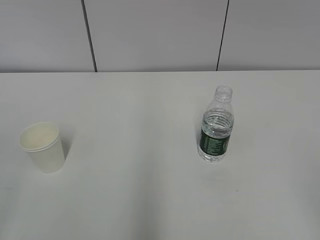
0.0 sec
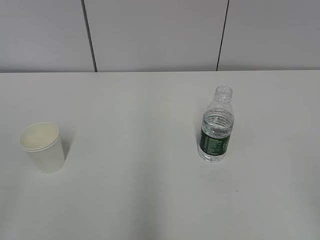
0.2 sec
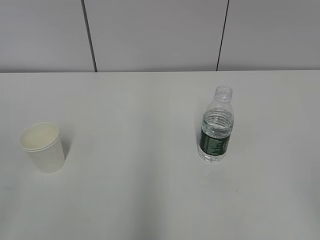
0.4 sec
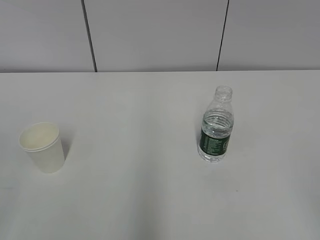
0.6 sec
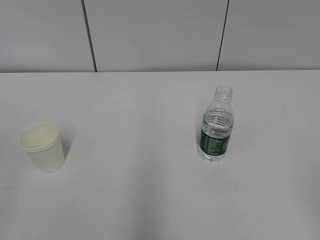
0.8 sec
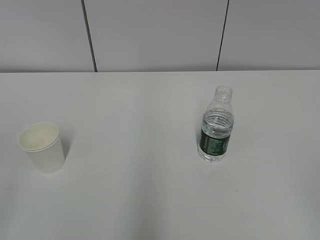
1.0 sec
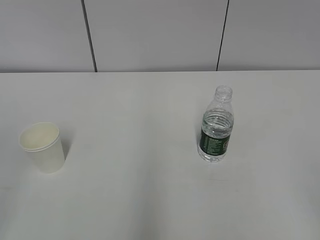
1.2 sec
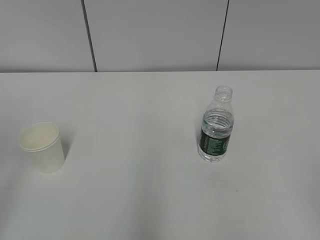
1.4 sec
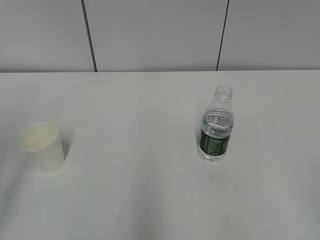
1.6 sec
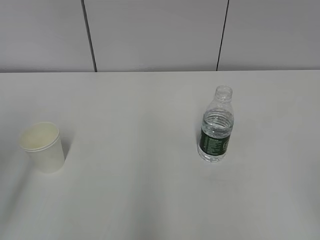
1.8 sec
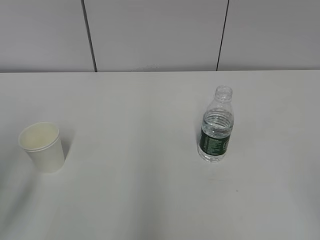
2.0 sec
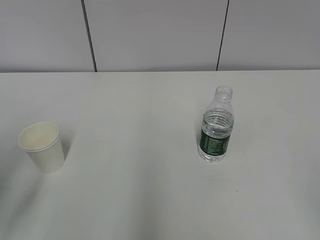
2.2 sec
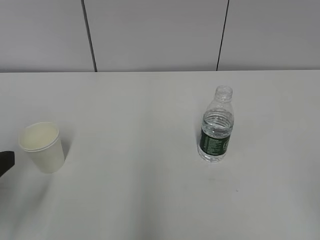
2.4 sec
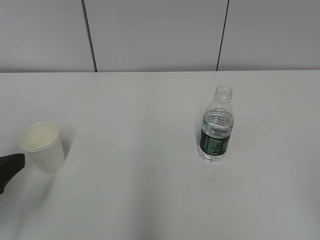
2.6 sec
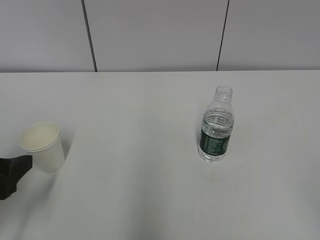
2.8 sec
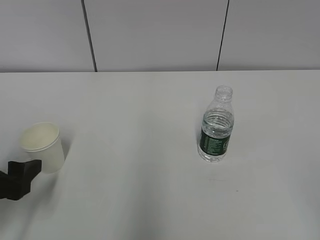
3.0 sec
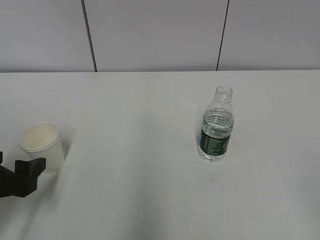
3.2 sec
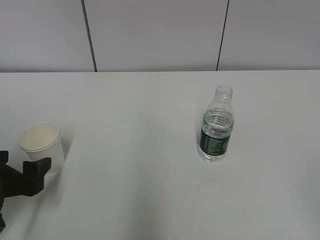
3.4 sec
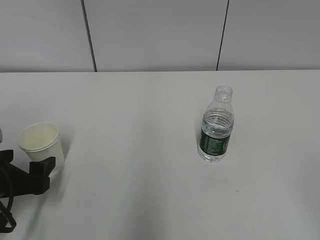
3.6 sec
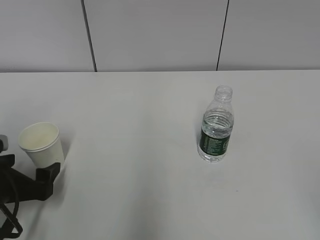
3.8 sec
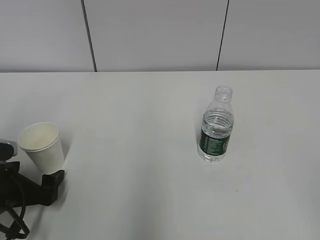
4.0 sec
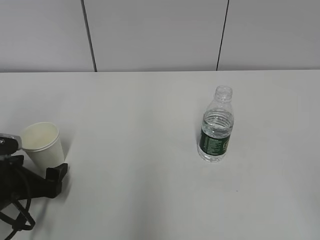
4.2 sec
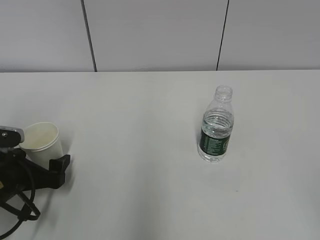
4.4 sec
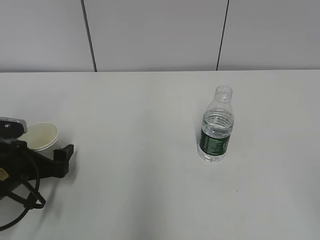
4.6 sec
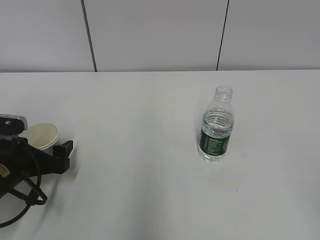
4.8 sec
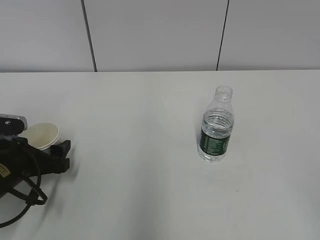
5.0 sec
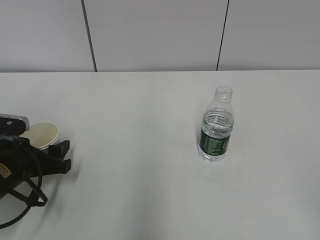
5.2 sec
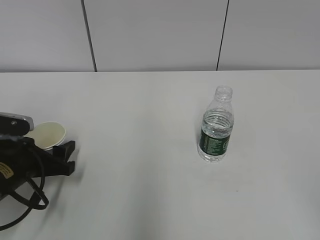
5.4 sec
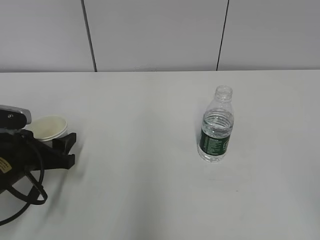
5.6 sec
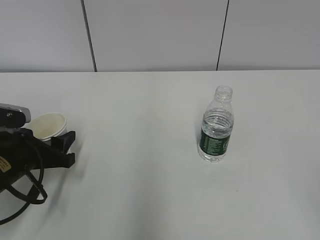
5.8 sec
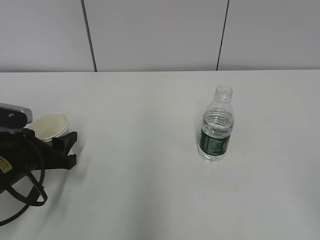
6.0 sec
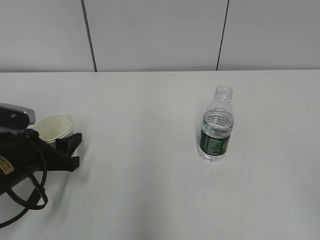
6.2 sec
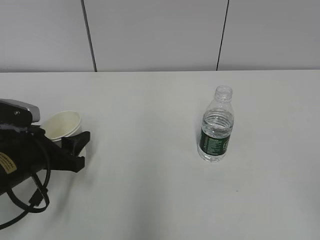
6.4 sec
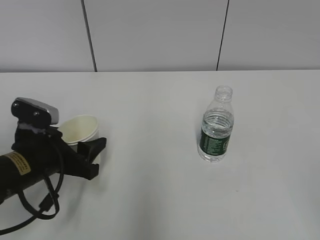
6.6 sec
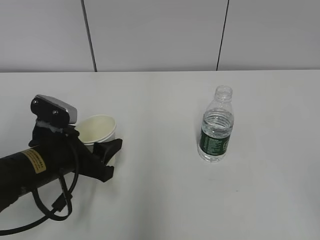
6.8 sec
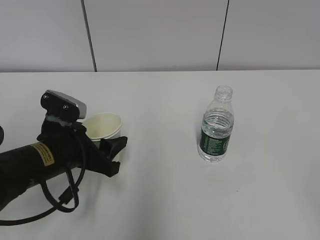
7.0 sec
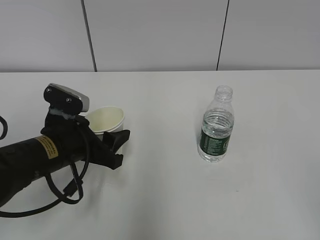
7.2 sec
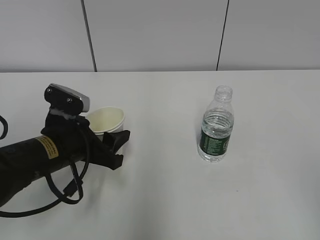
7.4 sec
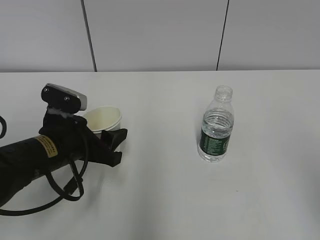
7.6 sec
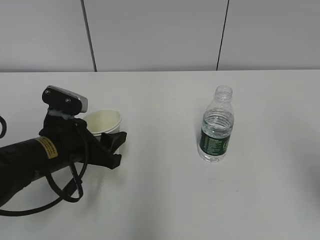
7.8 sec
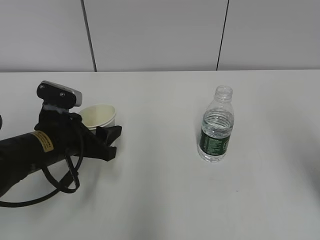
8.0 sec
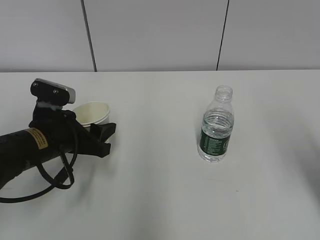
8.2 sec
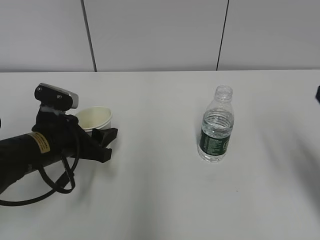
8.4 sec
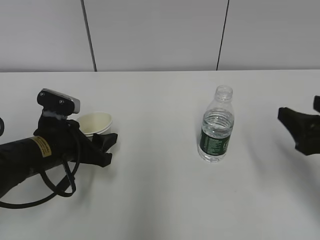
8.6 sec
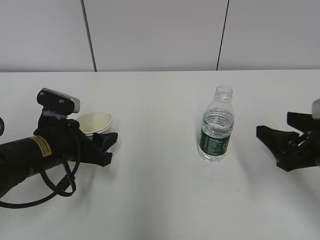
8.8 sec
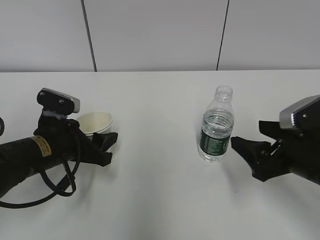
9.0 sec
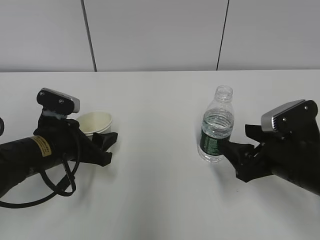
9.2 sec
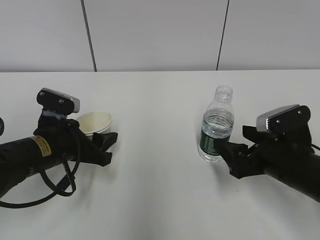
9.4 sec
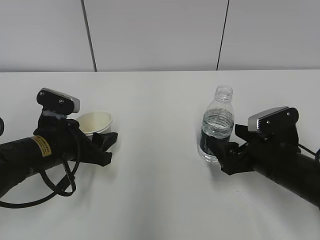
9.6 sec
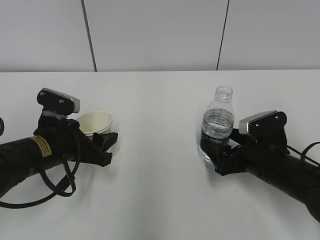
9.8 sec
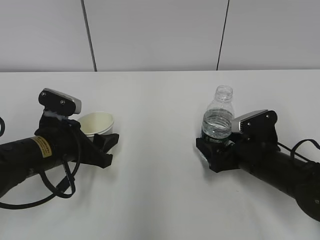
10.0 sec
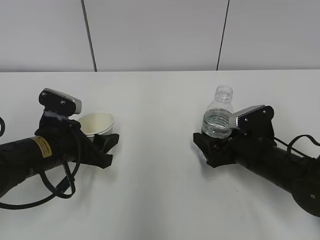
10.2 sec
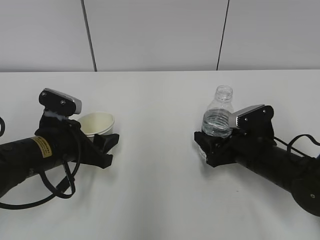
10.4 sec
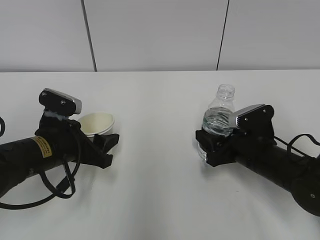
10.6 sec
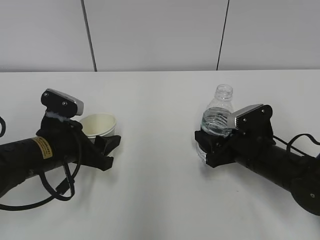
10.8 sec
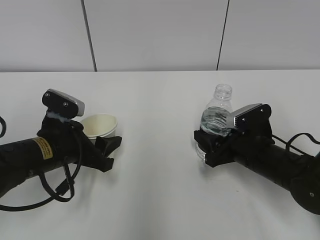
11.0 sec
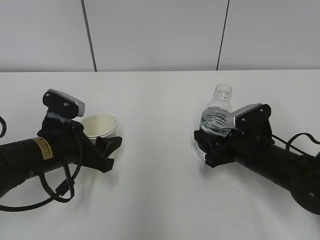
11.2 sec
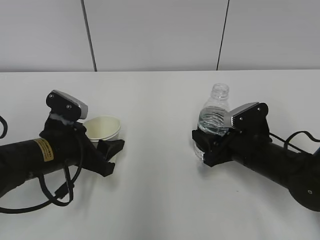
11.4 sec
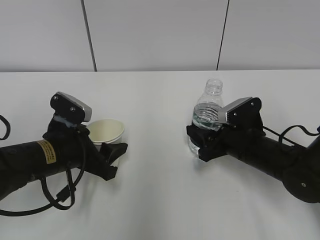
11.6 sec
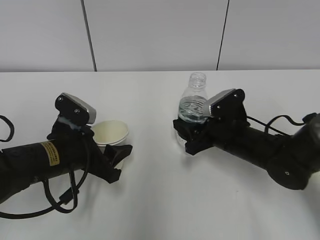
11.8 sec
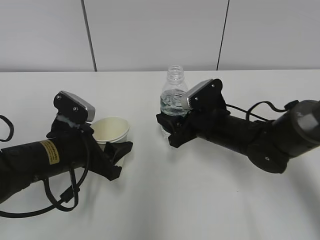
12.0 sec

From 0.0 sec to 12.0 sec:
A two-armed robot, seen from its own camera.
Step, from 0.0 sec to 4.2 sec: Grab the paper cup with the left hand.
Step, from 4.4 sec to 9.6 sec: Grab the water bottle with the right hand.
From 1.6 sec to 3.0 sec: The left gripper goes roughly 20 cm downward and forward.
From 3.0 sec to 4.4 sec: The left gripper is displaced downward and forward by roughly 10 cm, and opens its fingers.
From 4.4 sec to 6.0 sec: The left gripper closes.
From 6.0 sec to 7.6 sec: The right gripper is displaced forward by some 5 cm; the left gripper shifts approximately 10 cm to the right.
From 7.6 sec to 9.0 sec: The right gripper travels forward and downward by about 25 cm.
From 9.0 sec to 10.4 sec: The right gripper moves downward and forward, roughly 10 cm, and opens and closes again.
From 10.4 sec to 12.0 sec: The right gripper is displaced to the left by approximately 5 cm, and closes up.

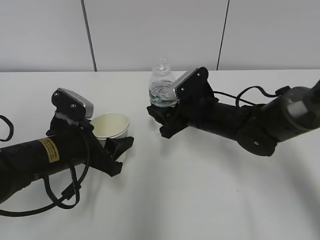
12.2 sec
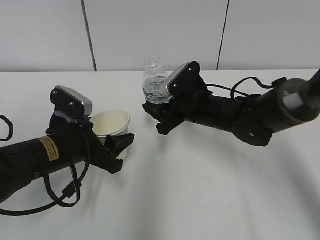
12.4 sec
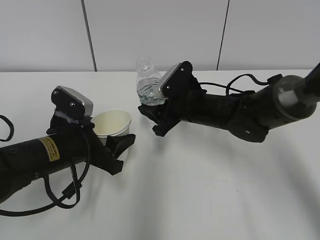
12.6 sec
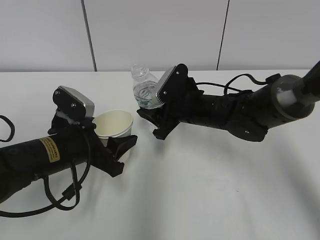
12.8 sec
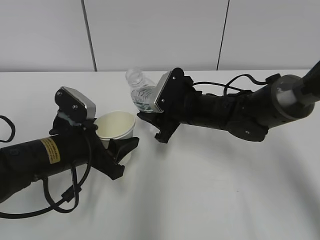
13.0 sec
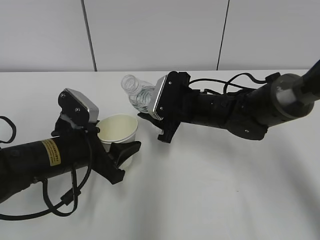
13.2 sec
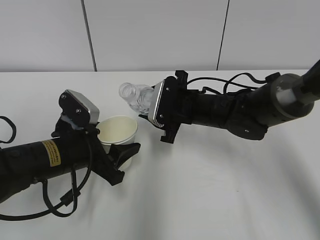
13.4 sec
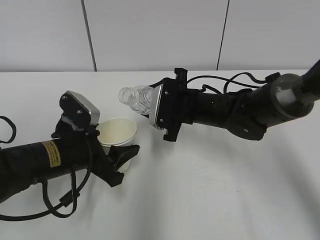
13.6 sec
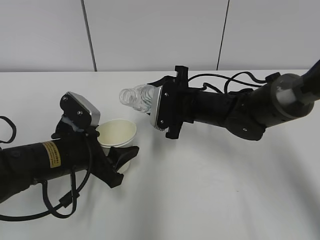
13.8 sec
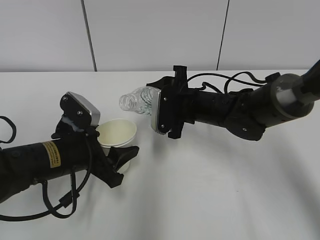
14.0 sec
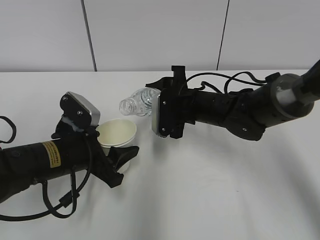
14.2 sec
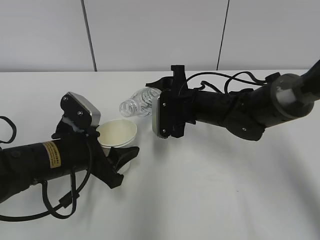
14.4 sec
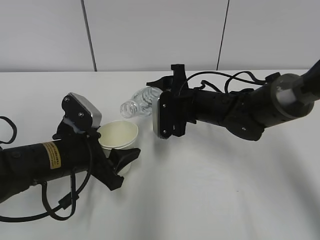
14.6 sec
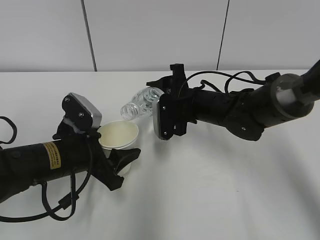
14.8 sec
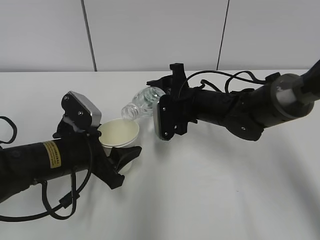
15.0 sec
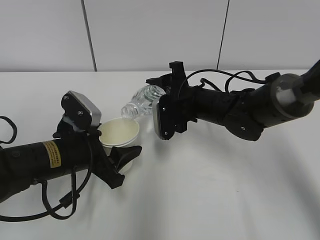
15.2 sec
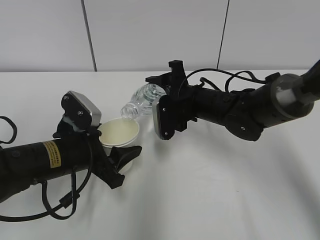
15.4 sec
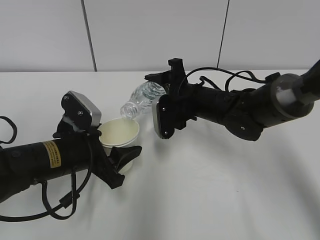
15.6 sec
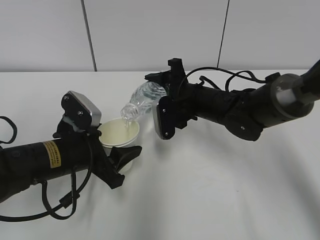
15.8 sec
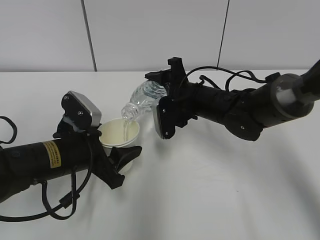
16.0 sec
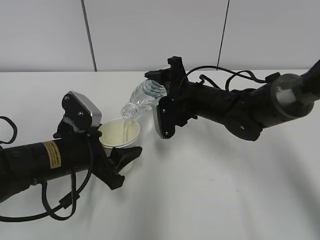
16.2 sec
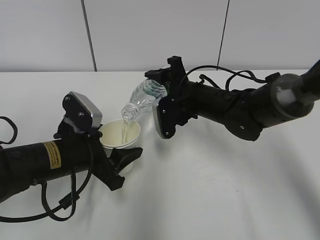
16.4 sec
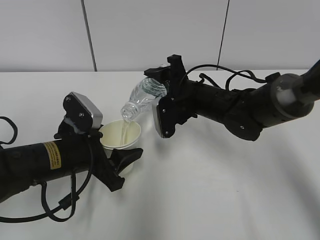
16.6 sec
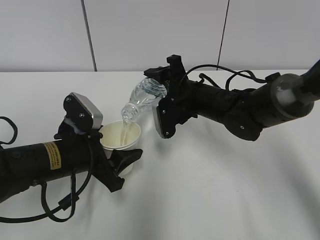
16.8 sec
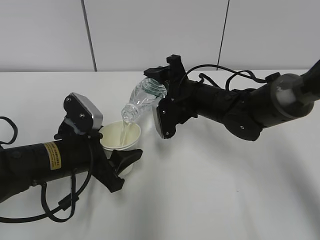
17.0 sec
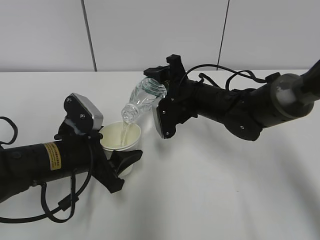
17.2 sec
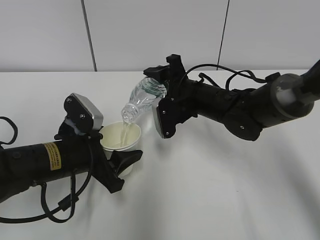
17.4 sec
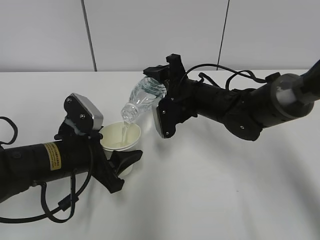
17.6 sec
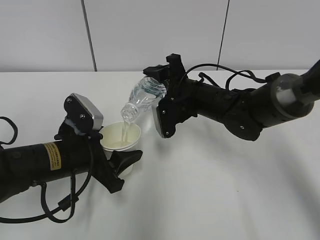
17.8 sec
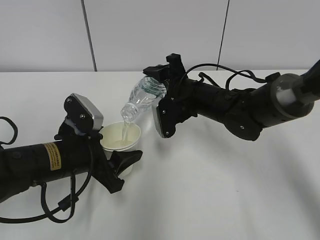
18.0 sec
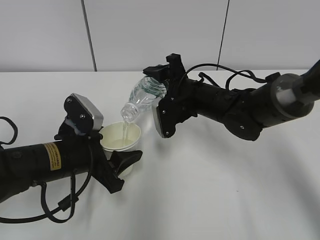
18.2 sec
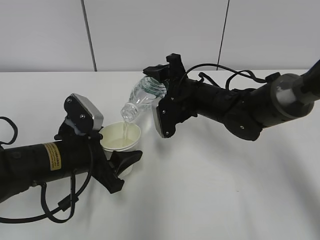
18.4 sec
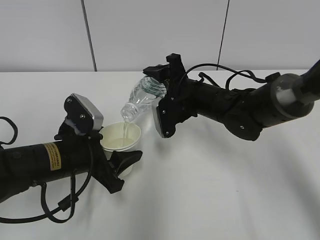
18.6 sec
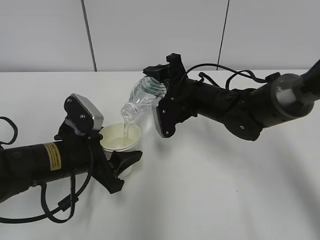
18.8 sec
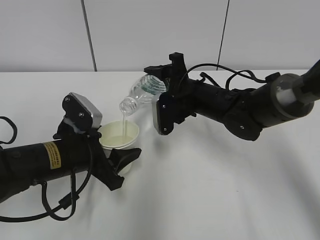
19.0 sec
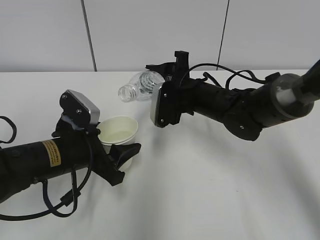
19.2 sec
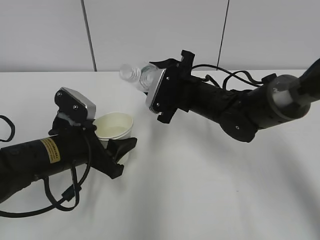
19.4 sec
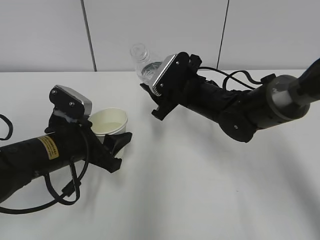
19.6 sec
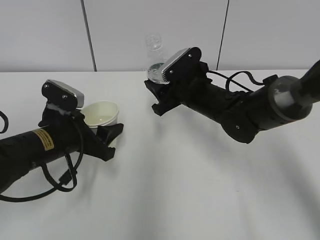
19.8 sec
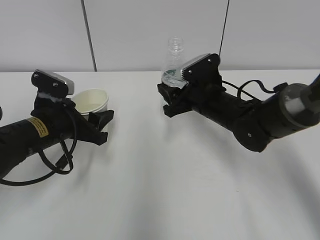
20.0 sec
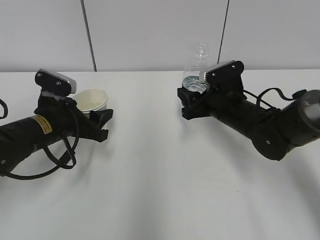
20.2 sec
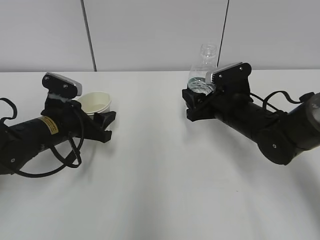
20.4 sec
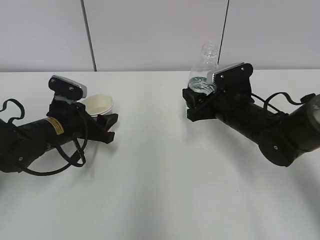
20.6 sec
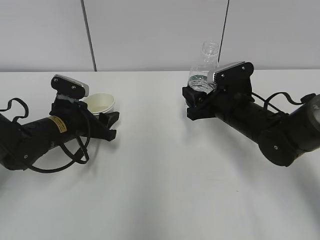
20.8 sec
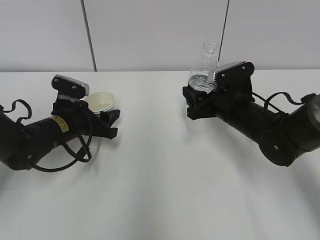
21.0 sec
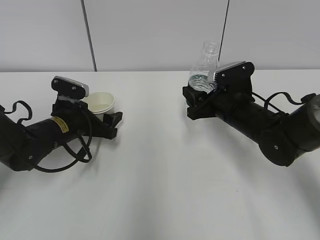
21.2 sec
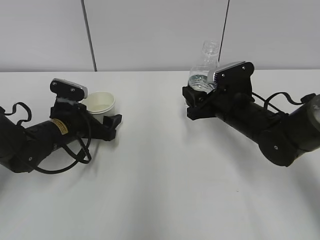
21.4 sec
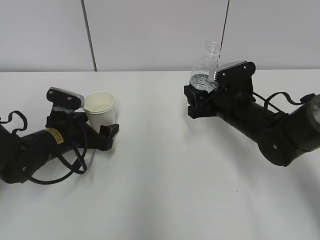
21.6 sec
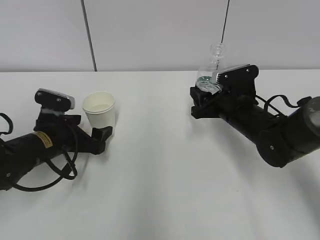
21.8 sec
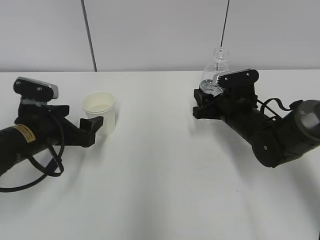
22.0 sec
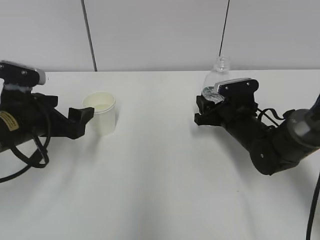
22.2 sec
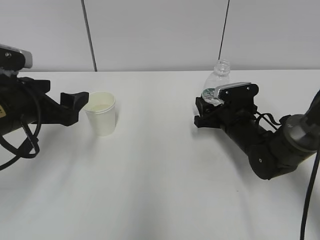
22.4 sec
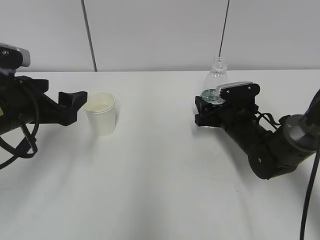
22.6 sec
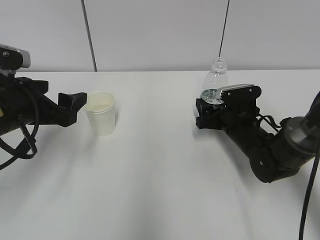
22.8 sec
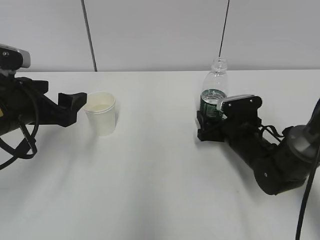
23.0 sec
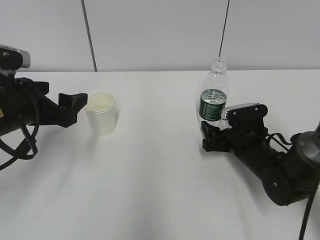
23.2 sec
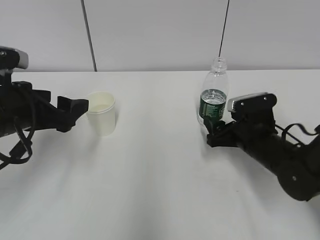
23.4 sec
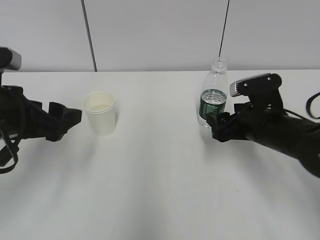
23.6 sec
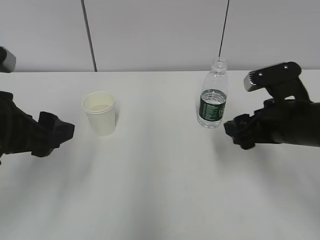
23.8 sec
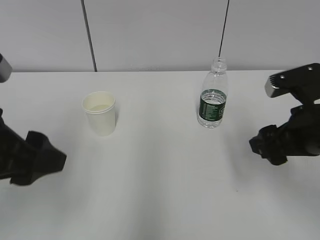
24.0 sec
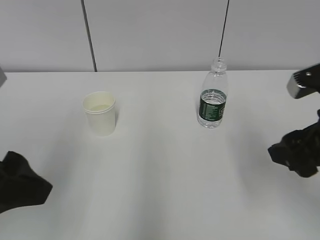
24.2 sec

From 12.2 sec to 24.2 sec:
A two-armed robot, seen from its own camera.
Step, from 13.2 sec to 15.8 sec: Fill water with the left hand.
Step, from 13.2 sec to 15.8 sec: Pour water with the right hand.
Step, from 16.0 sec to 16.8 sec: Collect water with the right hand.
From 15.2 sec to 16.6 sec: There are only small adjustments of the grippers.
From 16.6 sec to 18.2 sec: Both grippers stay about where they are.
From 19.8 sec to 21.2 sec: The left gripper is displaced forward by some 10 cm, and opens, while the right gripper shifts approximately 5 cm to the right.
From 21.2 sec to 22.6 sec: The left gripper is displaced upward and backward by some 15 cm; the right gripper heads downward, covering roughly 5 cm, and opens up.
From 22.6 sec to 24.2 sec: The left gripper is displaced backward and upward by some 15 cm. Meanwhile the right gripper is displaced backward and upward by roughly 25 cm.
